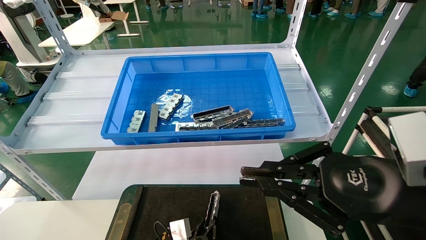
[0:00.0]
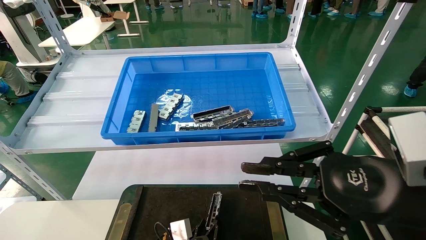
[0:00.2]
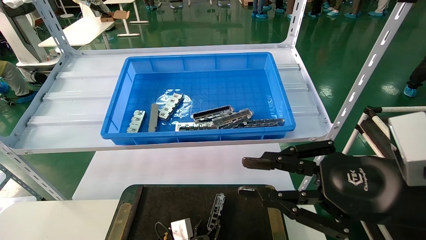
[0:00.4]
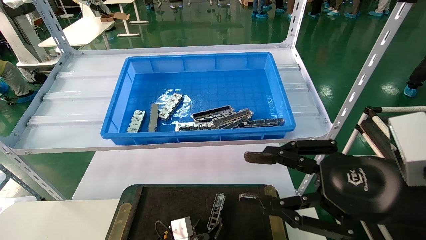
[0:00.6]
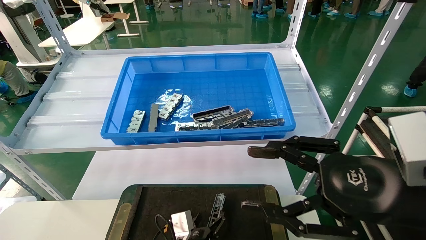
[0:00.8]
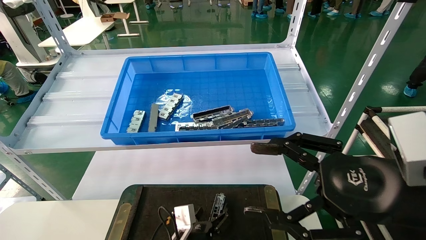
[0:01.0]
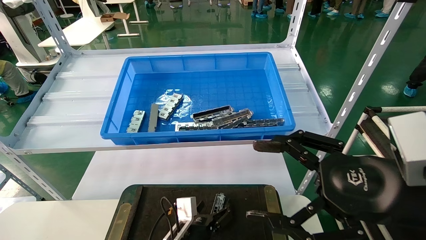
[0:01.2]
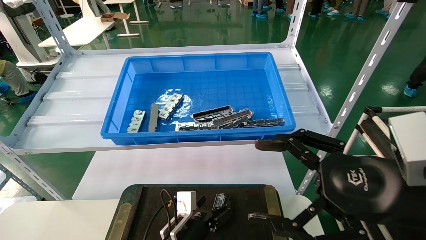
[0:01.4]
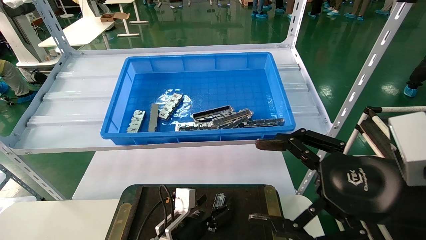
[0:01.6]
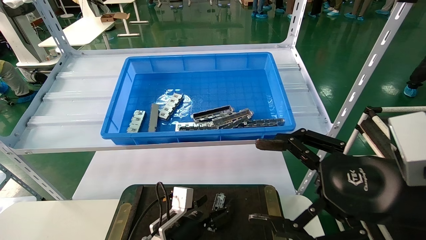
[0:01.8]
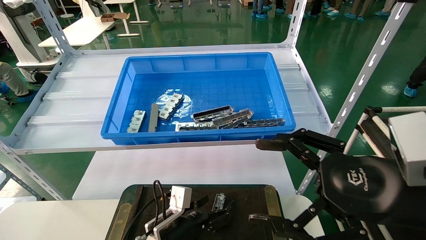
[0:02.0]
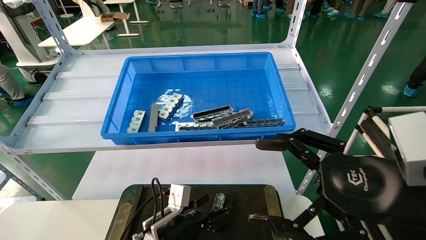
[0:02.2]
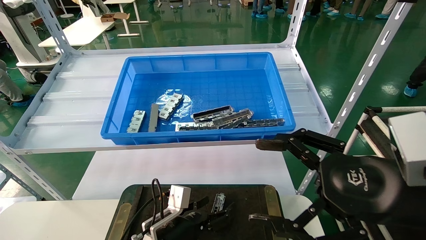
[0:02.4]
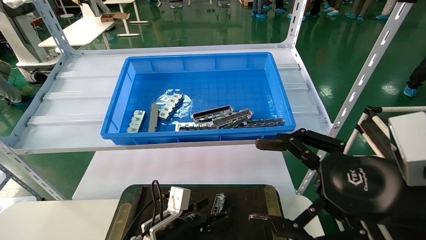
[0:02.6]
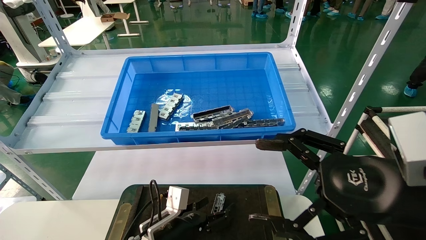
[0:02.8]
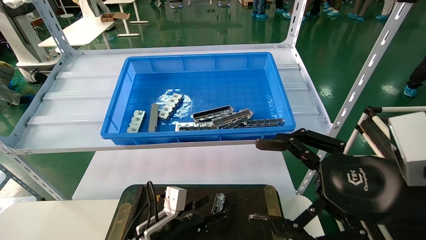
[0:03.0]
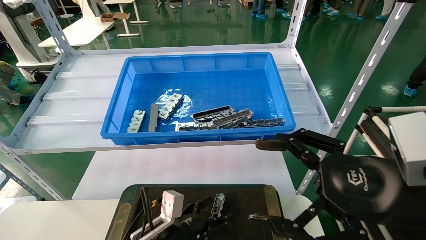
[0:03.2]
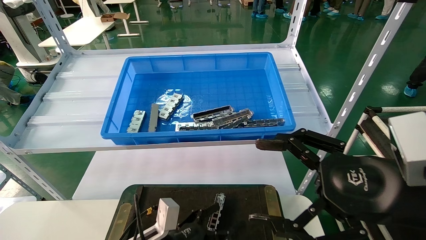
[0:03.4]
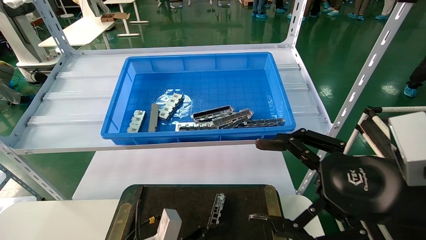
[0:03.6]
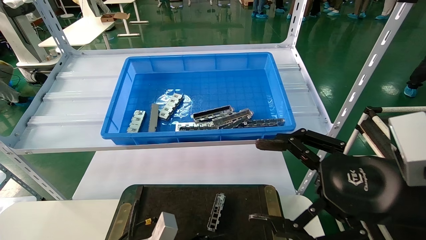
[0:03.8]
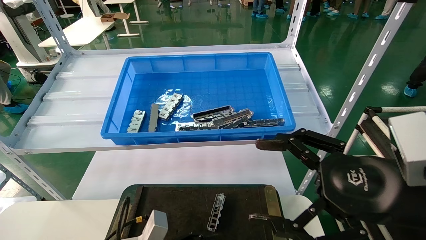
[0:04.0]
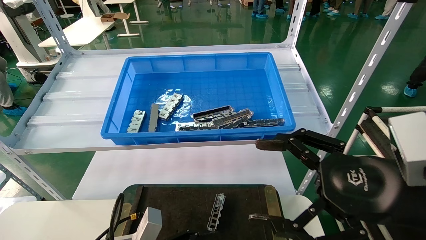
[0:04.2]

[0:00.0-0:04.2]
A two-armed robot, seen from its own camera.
Task of the whole recording: Grasp the part with one hand and place it on the black container.
0:00.0 to 0:01.4: The left gripper shifts some 5 cm upward, and opens, while the right gripper opens its fingers.
0:01.4 to 0:02.8: The left gripper moves roughly 5 cm.
0:02.8 to 0:04.2: The left gripper travels backward, to the left and upward by roughly 10 cm.
